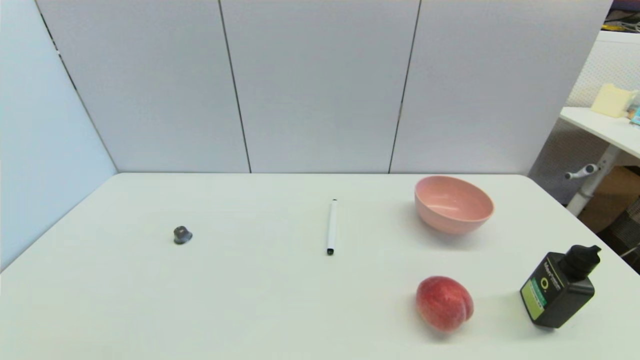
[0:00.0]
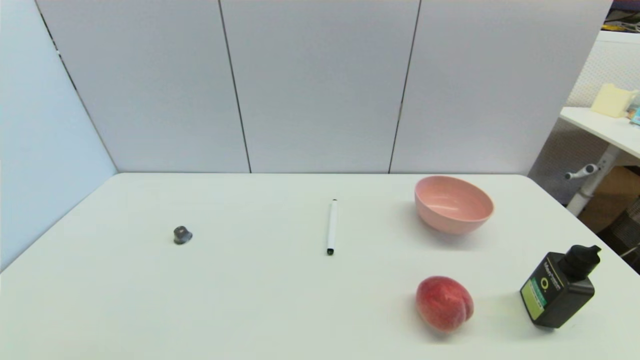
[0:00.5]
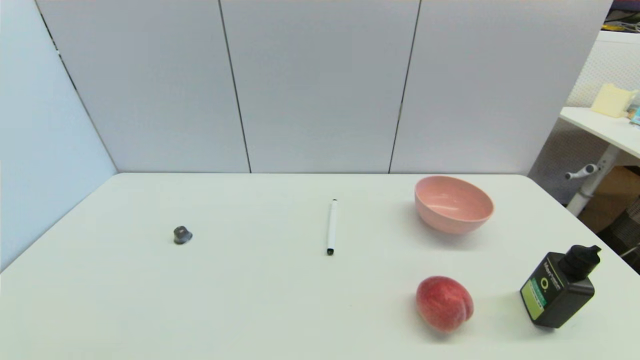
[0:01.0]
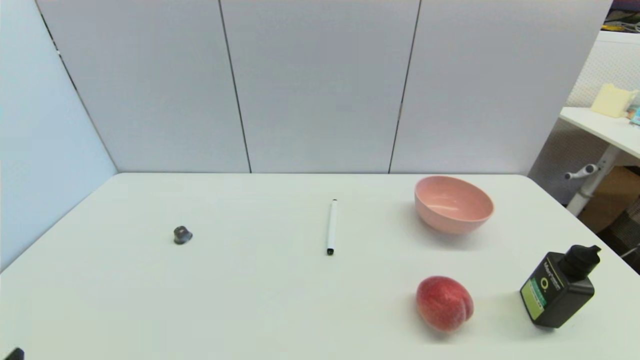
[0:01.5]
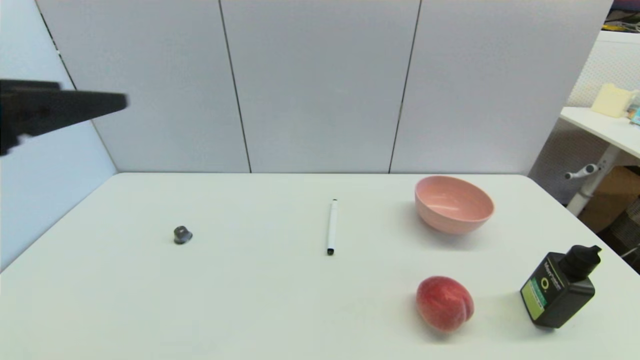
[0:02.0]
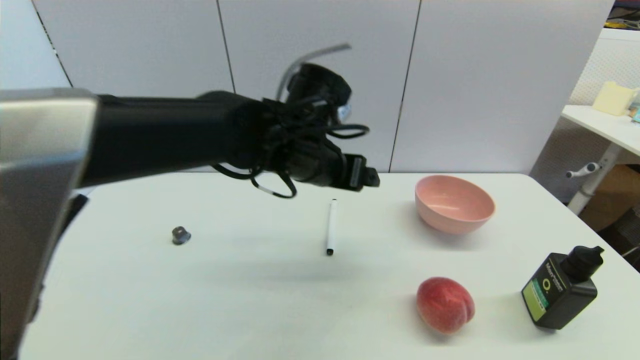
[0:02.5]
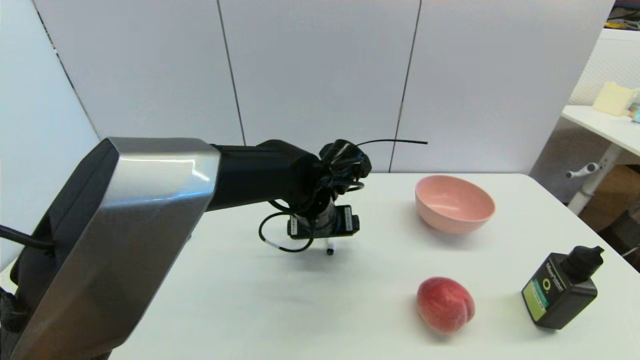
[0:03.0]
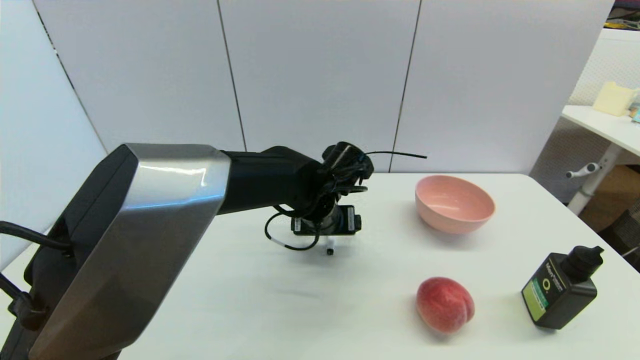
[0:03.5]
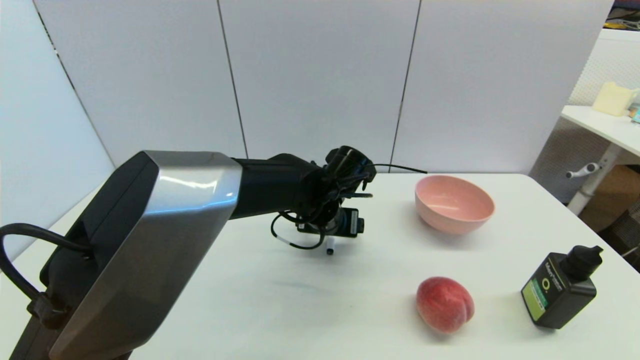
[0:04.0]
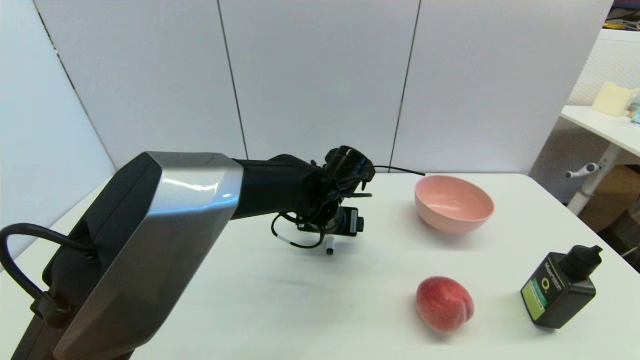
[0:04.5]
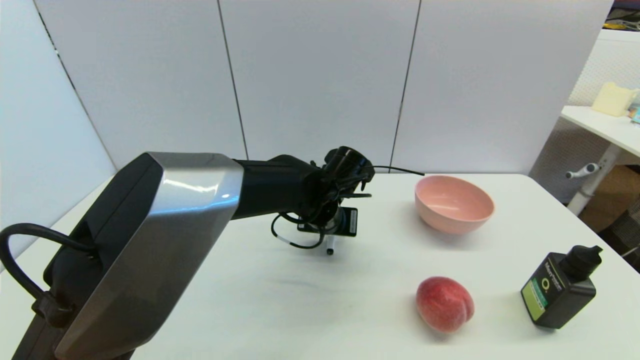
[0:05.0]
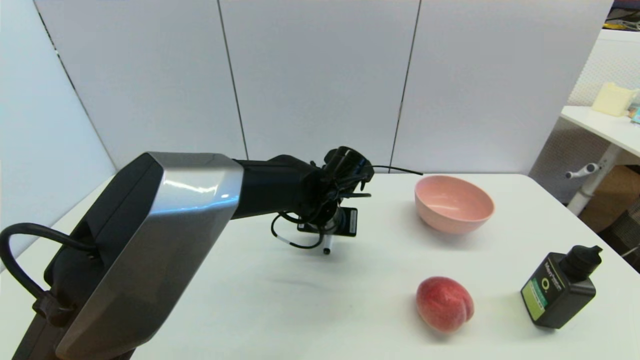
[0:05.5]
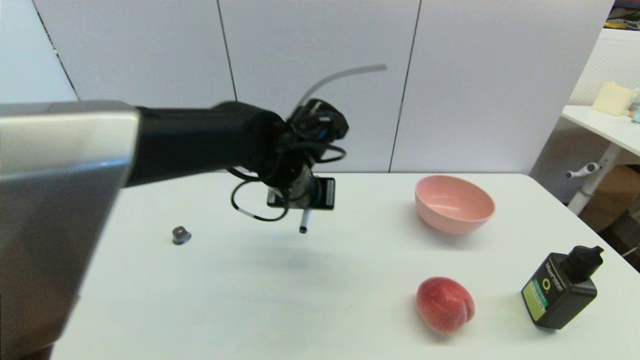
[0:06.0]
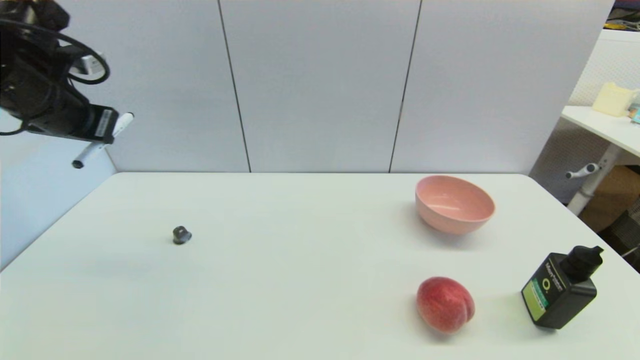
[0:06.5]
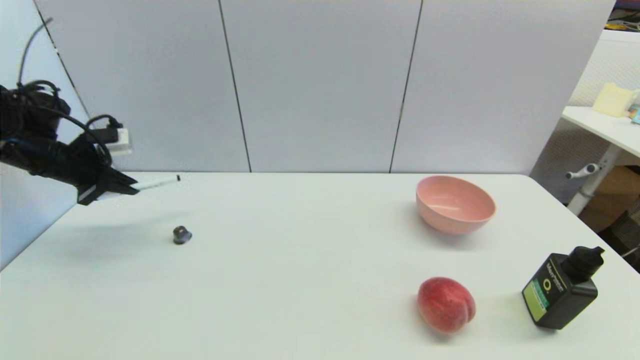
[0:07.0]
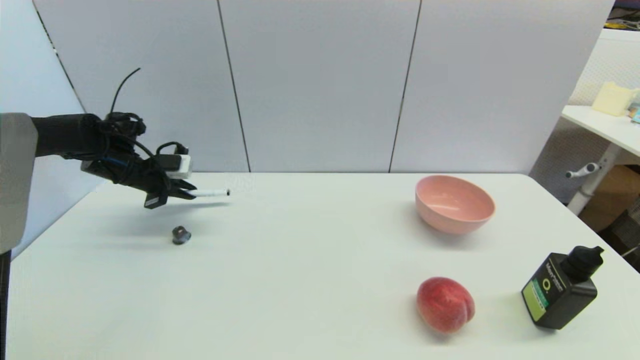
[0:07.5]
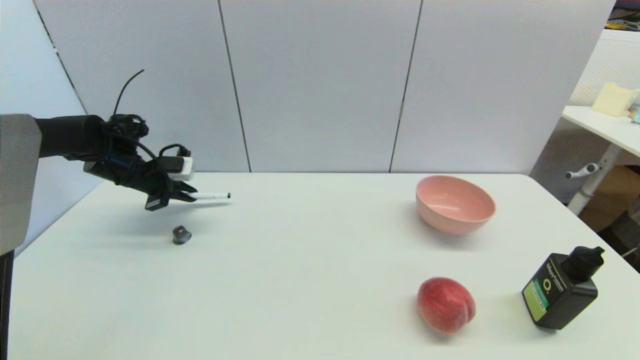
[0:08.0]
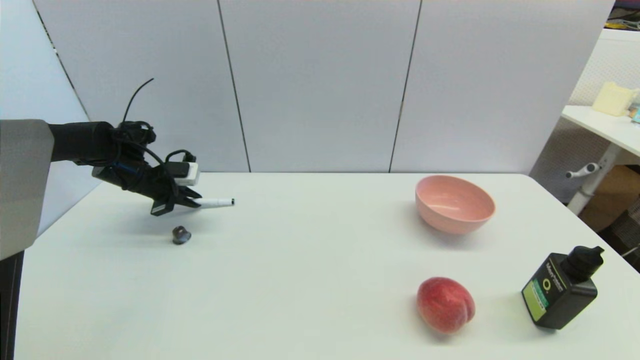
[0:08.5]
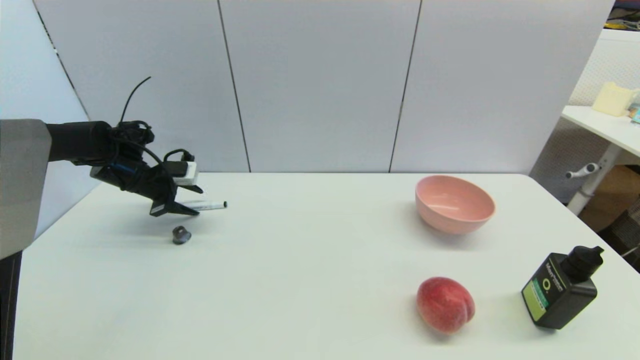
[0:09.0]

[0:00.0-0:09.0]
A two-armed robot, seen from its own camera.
Task of the whole recording: put the black marker in the designated position.
Step, 0:02.0 to 0:05.0: Grasp the Marker pen with left gripper.
Step, 0:05.5 to 0:08.5: Place the Marker pen on the table with left gripper.
0:00.0 to 0:02.0: The left gripper moves upward and forward, approximately 30 cm.
0:02.0 to 0:04.5: The left gripper moves to the right, downward and forward, approximately 40 cm.
0:04.5 to 0:07.0: The left gripper moves to the left, some 40 cm, and closes its fingers.
0:07.0 to 0:09.0: The left gripper travels to the right, downward and forward by roughly 10 cm, and opens.

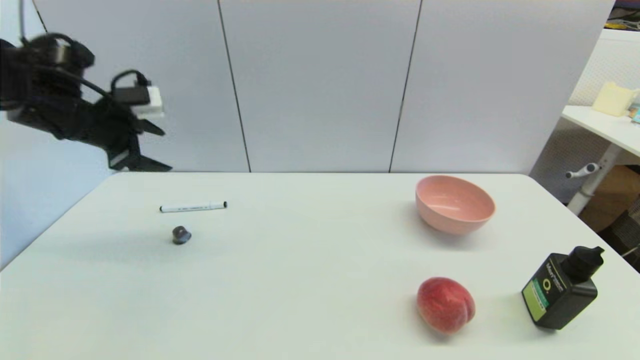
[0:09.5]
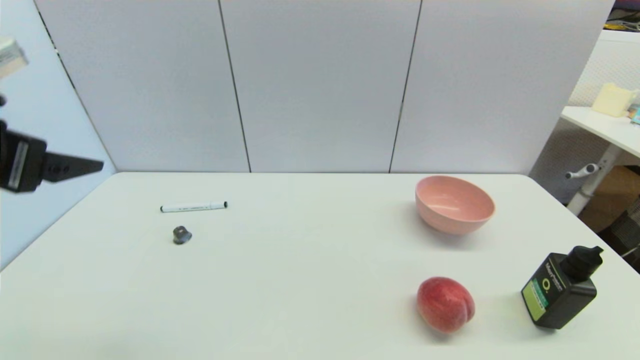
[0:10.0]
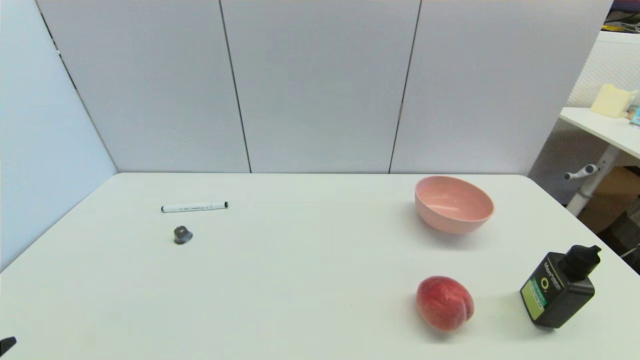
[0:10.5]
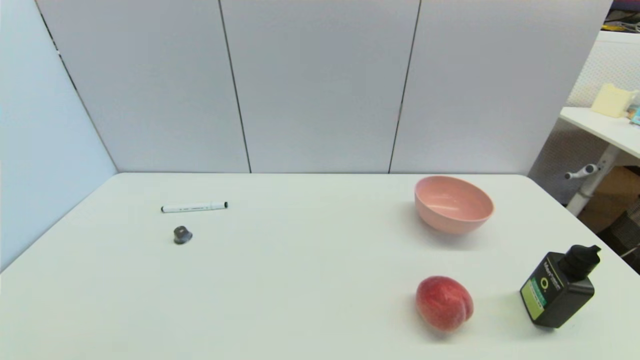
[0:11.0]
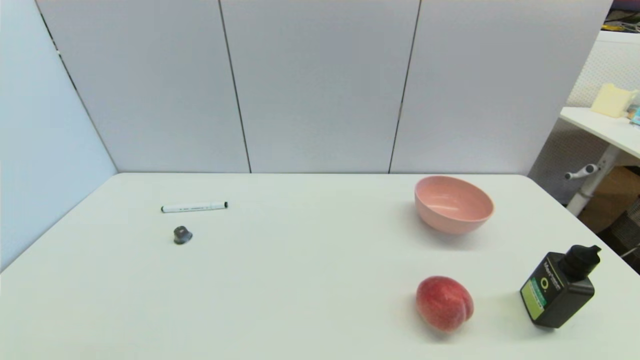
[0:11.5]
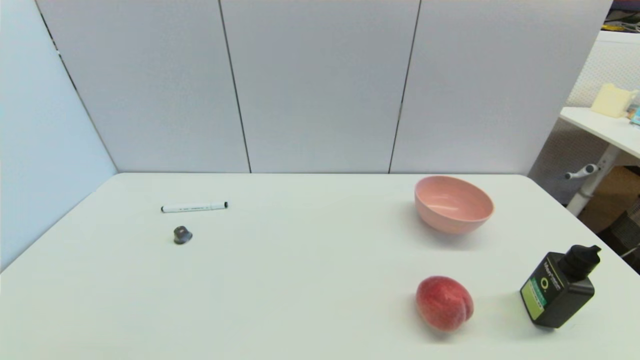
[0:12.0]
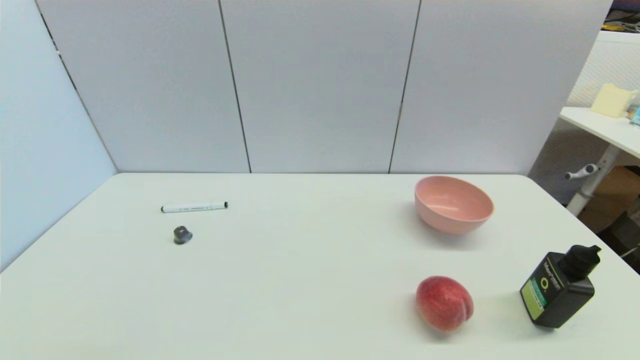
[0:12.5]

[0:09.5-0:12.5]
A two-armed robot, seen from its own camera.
Task of the whole recording: put the black marker in the designated position.
0:09.5 to 0:11.0: The left gripper travels backward and downward by roughly 40 cm.
0:11.0 to 0:12.5: Both grippers stay put.

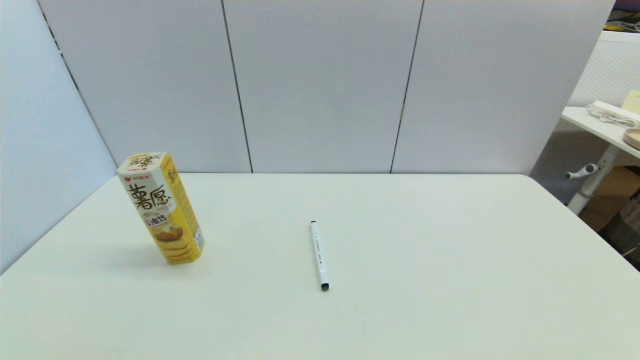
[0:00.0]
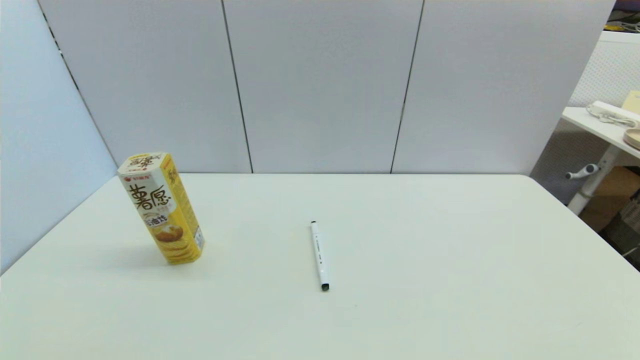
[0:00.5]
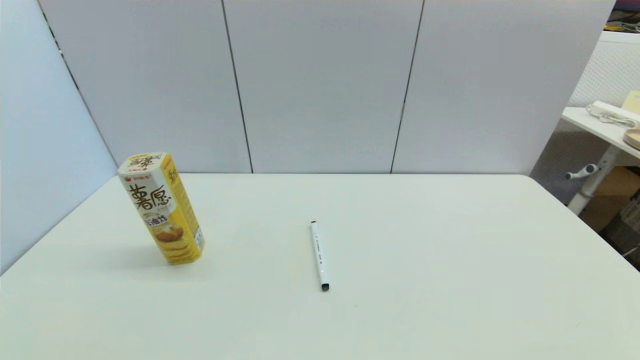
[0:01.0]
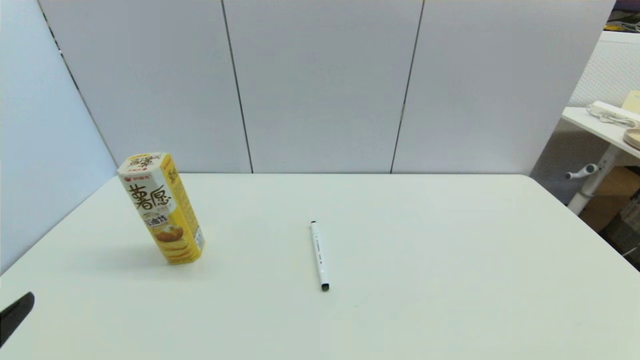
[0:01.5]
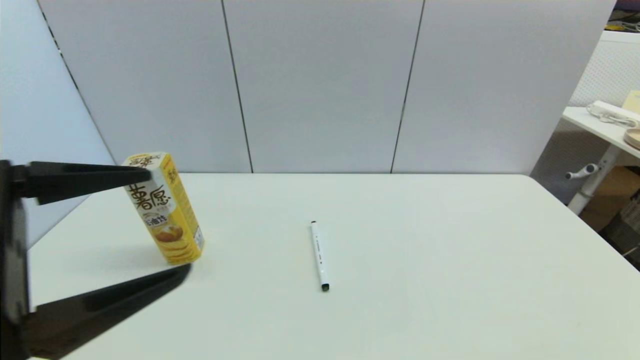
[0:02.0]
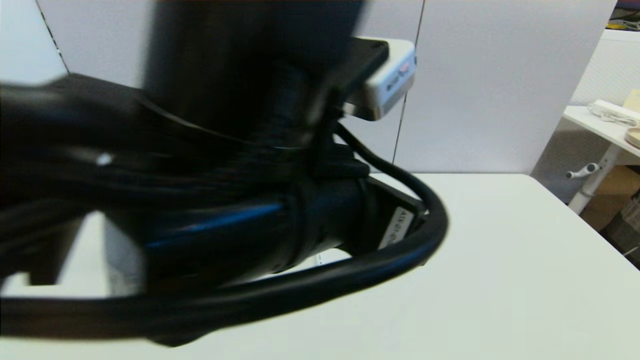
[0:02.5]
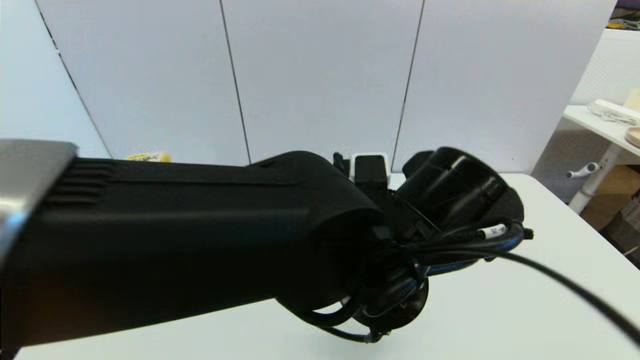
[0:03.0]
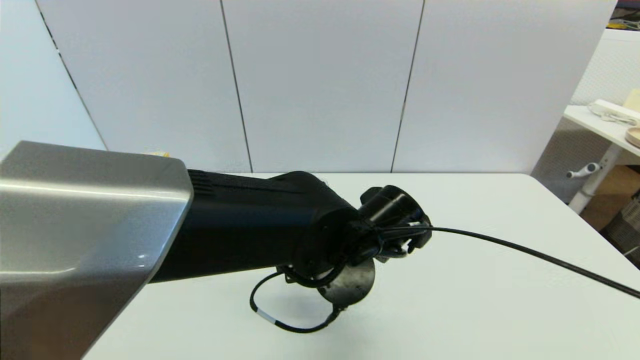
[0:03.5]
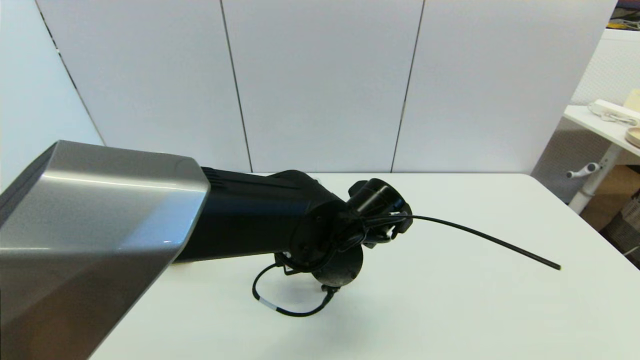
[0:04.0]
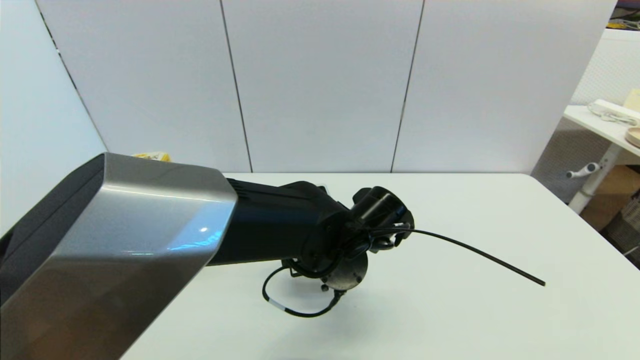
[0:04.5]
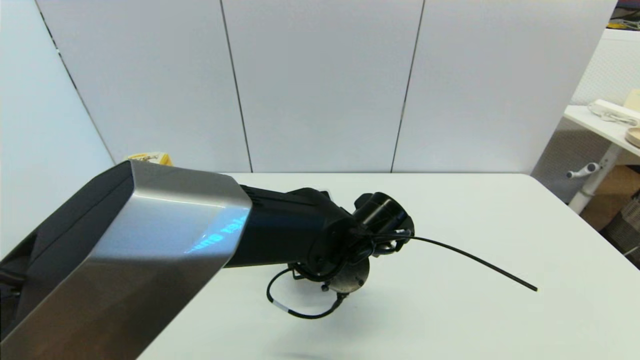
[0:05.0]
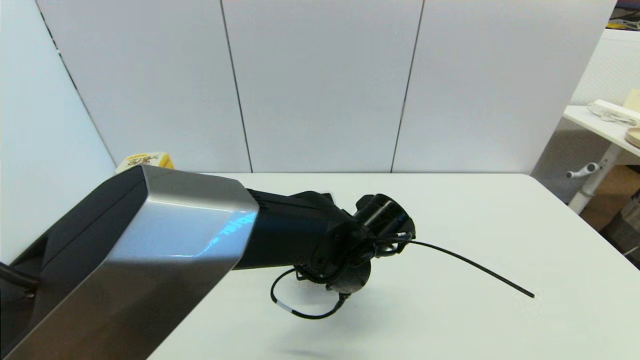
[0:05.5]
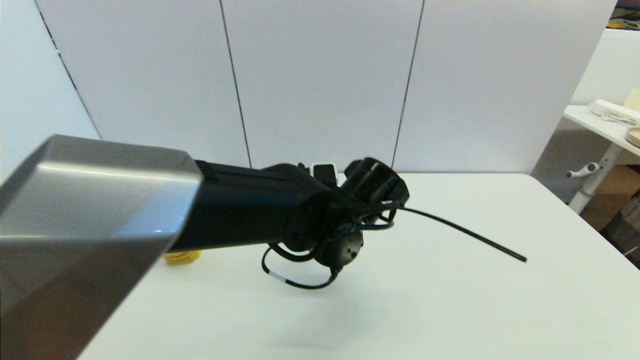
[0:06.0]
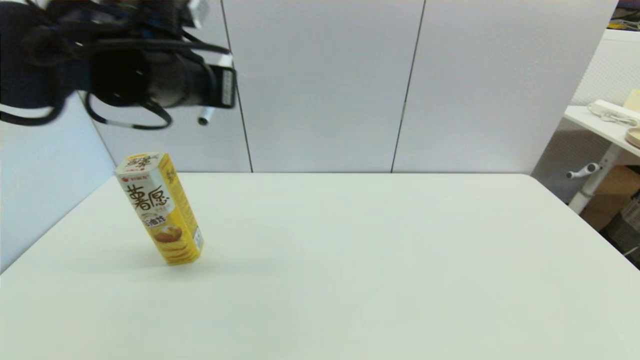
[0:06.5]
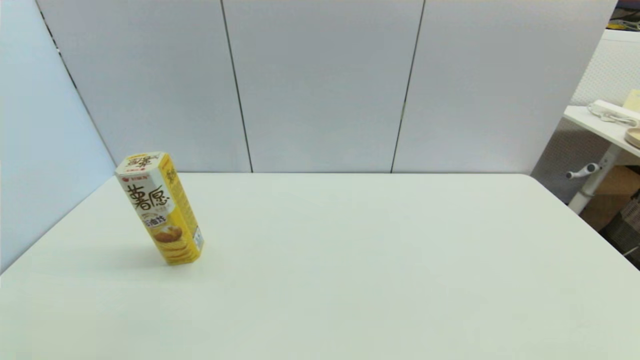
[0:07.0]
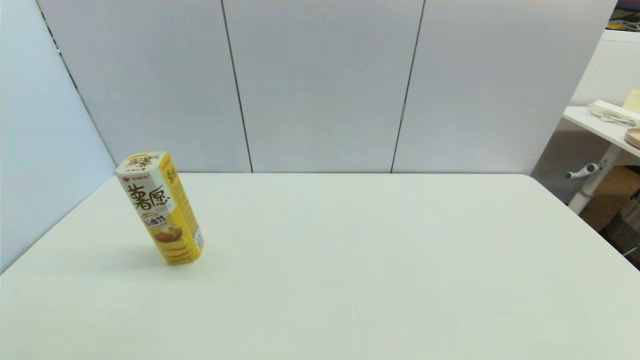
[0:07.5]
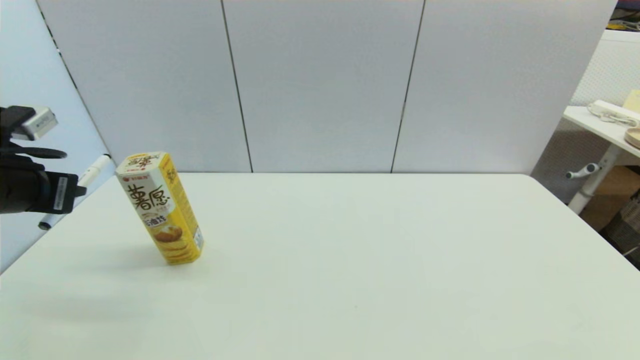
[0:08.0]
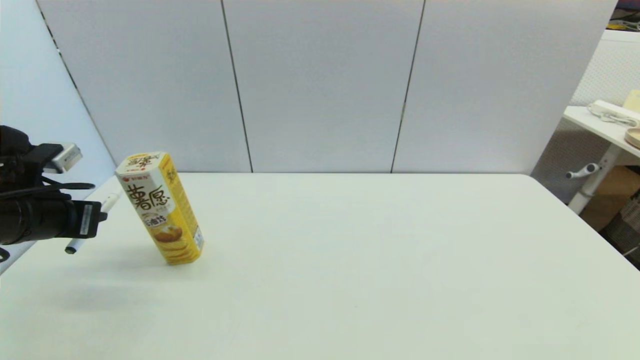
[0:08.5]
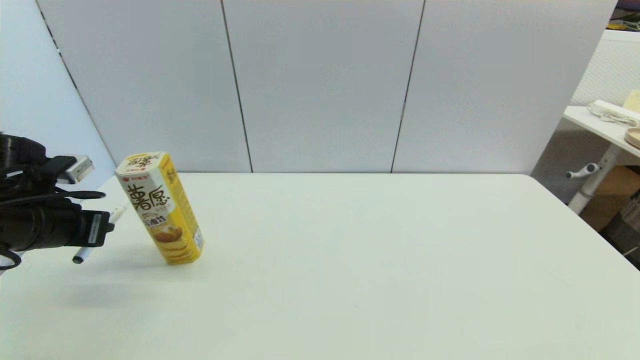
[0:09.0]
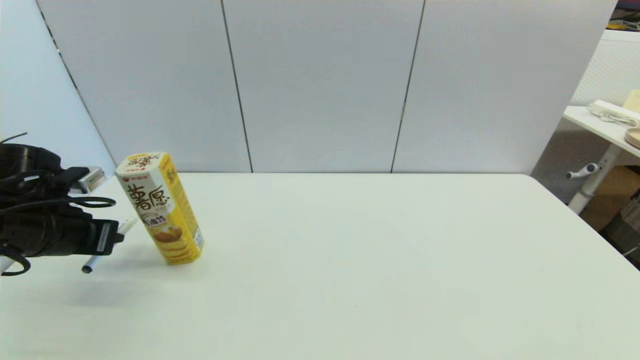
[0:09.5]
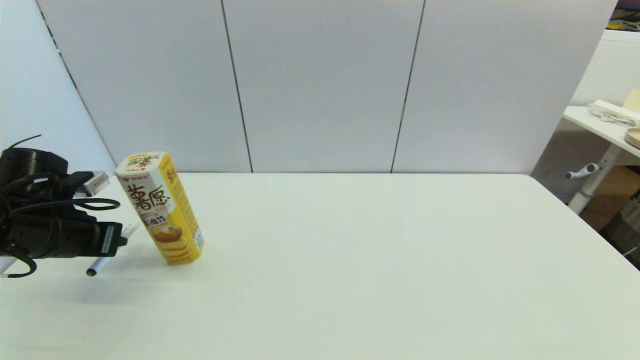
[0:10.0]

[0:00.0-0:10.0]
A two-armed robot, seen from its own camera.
Task of the whole recording: put the black marker in the designated position.
Step, 0:01.5 to 0:05.5: Grasp the Marker pen with left gripper.
0:00.0 to 0:02.0: The left gripper travels upward, forward and to the right by roughly 25 cm.
0:02.0 to 0:04.0: The left gripper moves to the right, forward and downward, about 30 cm.
0:04.0 to 0:06.0: The left gripper closes.
0:06.0 to 0:08.0: The left gripper goes approximately 35 cm to the left.
0:08.0 to 0:10.0: The left gripper is displaced downward by some 10 cm.
